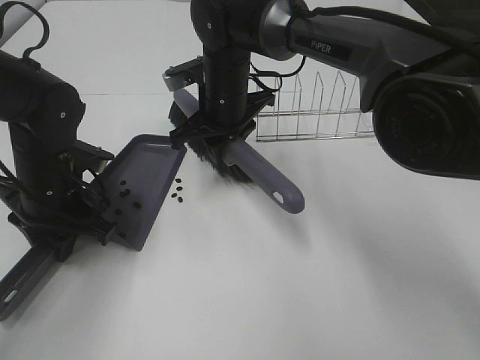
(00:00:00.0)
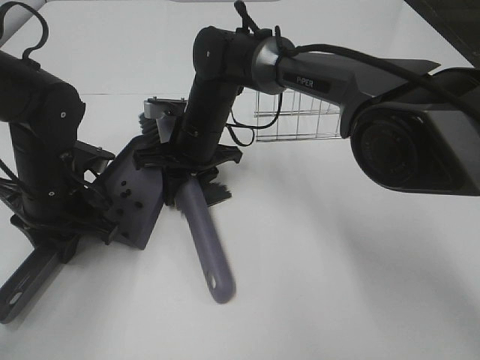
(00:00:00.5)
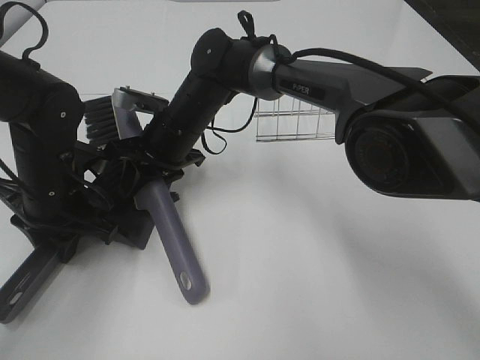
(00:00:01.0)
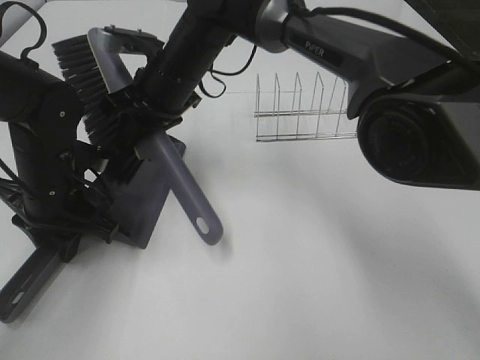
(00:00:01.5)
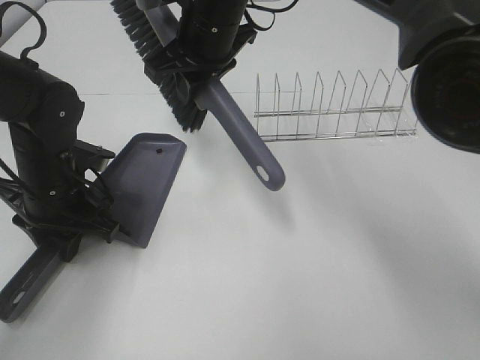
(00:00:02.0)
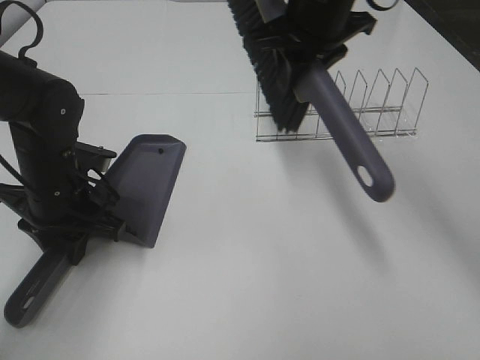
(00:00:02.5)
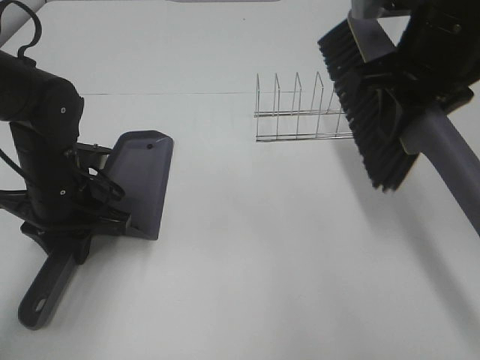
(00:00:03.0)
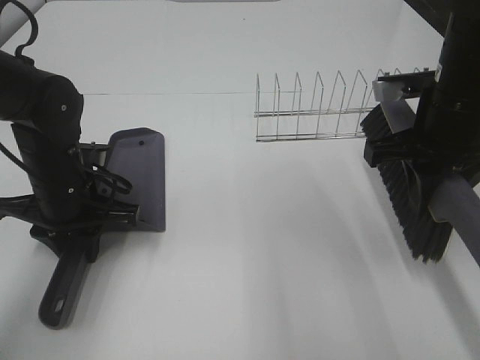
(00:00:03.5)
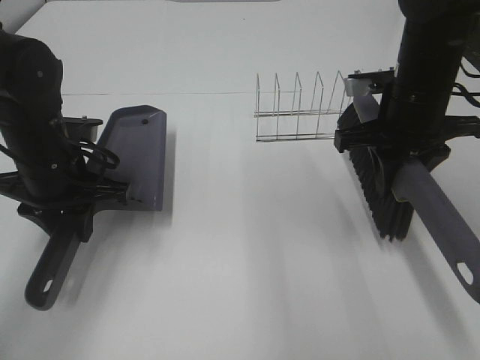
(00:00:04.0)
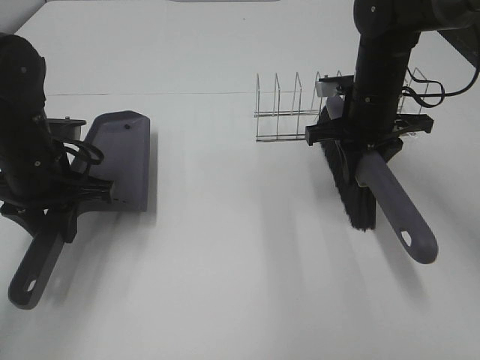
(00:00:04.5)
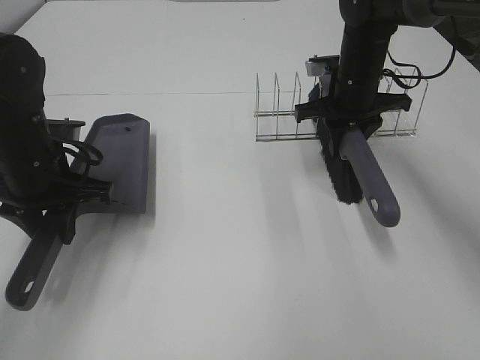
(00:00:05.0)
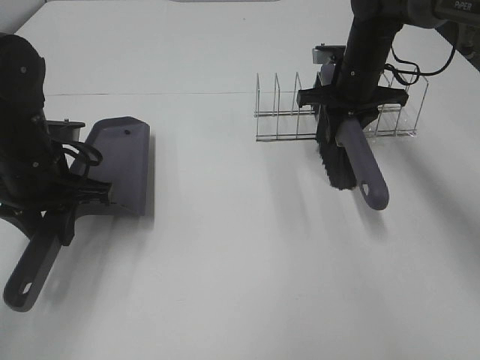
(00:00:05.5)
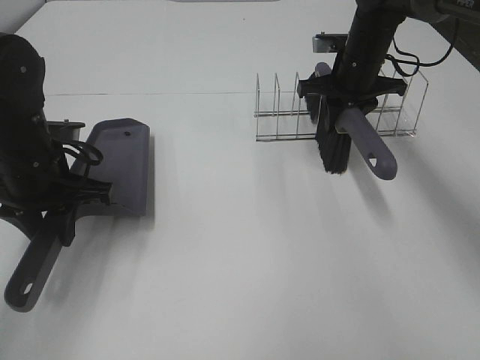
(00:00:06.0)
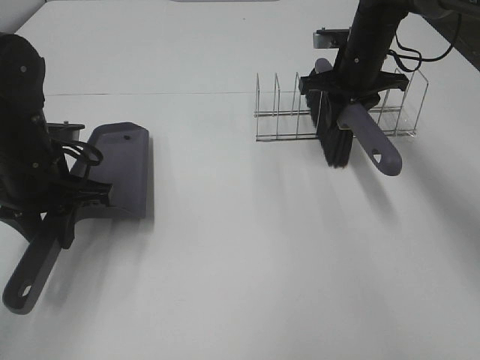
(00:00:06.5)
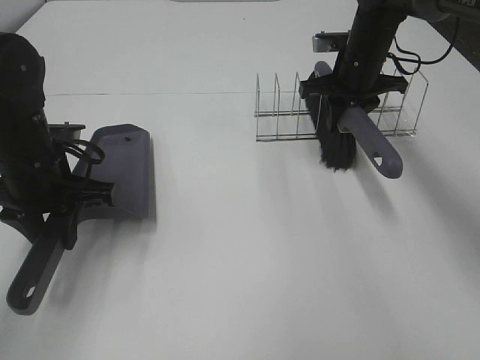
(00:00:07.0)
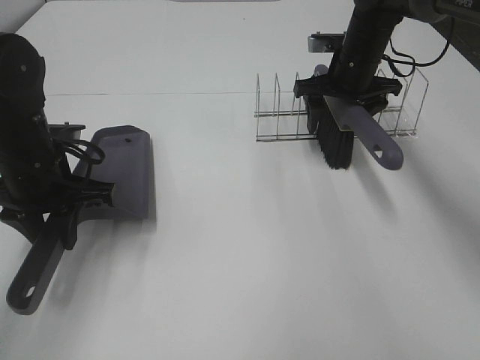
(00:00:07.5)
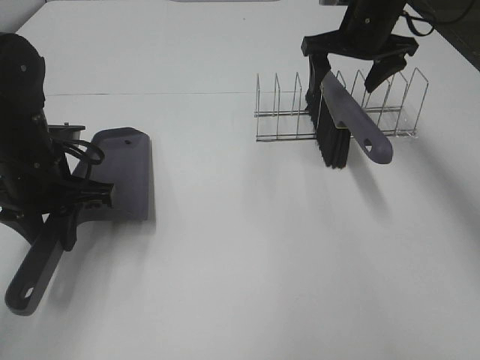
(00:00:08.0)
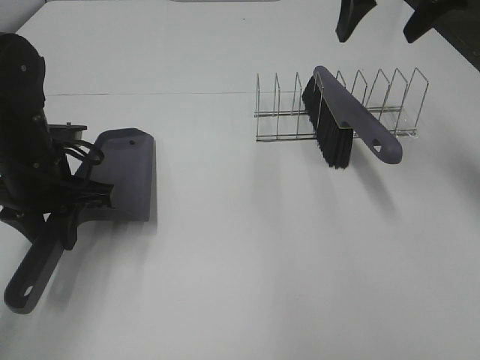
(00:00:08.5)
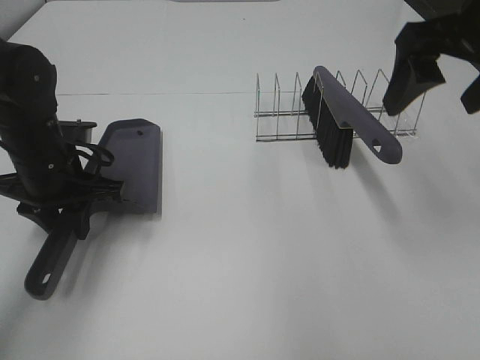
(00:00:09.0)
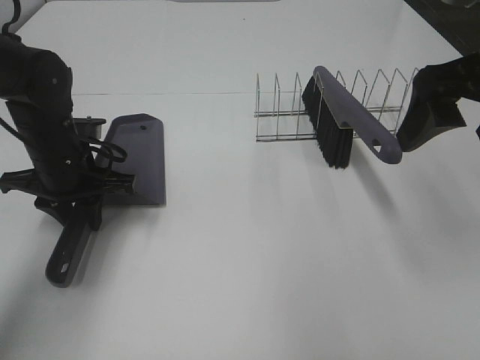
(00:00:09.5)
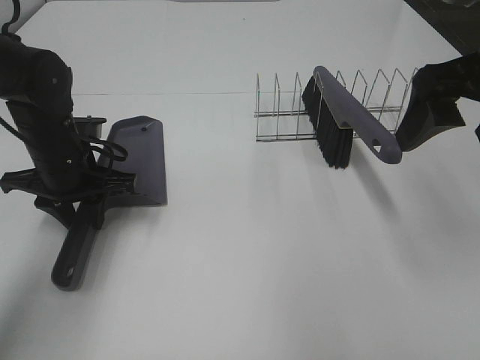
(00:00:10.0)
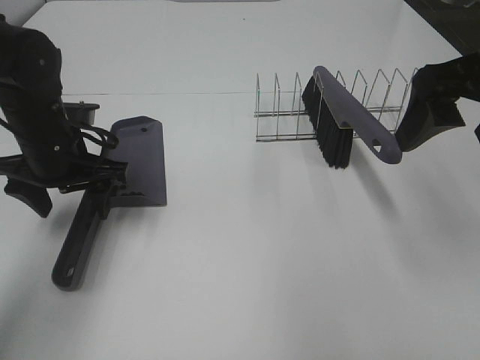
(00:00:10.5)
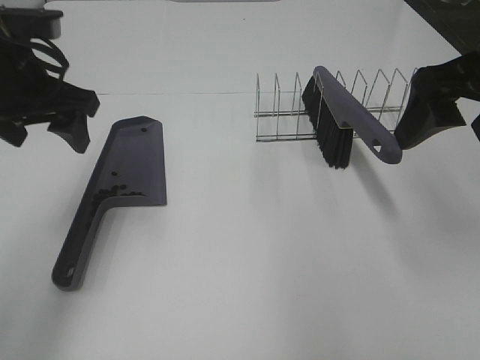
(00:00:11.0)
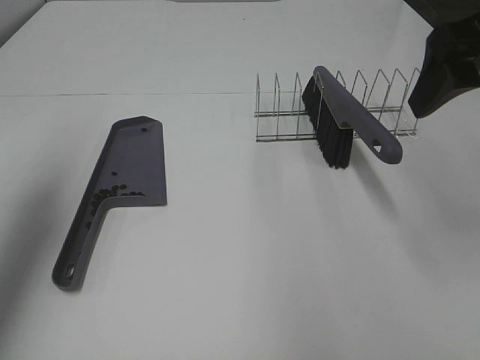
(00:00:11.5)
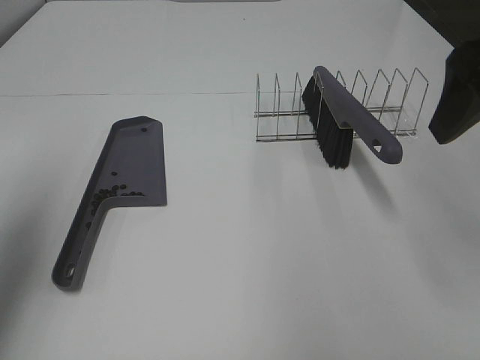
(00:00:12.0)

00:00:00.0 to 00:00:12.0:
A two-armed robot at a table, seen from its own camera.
Task of the whole recording: Sweep Coffee Bean.
Step, 00:00:02.0 to 00:00:07.5: Right hand:place the broom on the rack.
Step, 00:00:08.0 to 00:00:10.5: Left hand:place the dustpan on the table.
00:00:00.0 to 00:00:02.0: The right gripper shifts approximately 10 cm upward.
00:00:02.0 to 00:00:04.0: The right gripper moves to the right and backward, roughly 20 cm.
00:00:04.0 to 00:00:06.0: The right gripper is displaced forward by some 15 cm.
00:00:06.0 to 00:00:08.0: The right gripper is displaced upward by approximately 5 cm, and opens its fingers.
00:00:08.0 to 00:00:10.0: The right gripper travels backward by roughly 25 cm.
00:00:10.0 to 00:00:12.0: The left gripper heads upward, to the left and backward, covering approximately 25 cm, and opens its fingers.

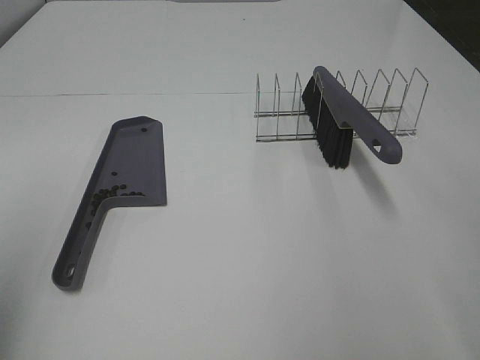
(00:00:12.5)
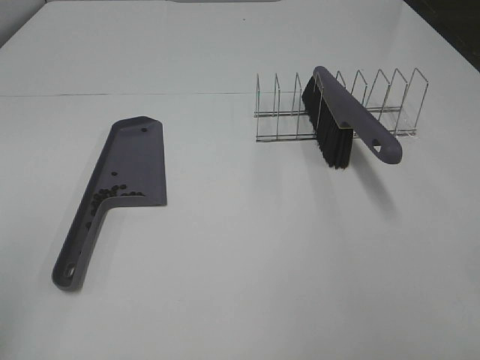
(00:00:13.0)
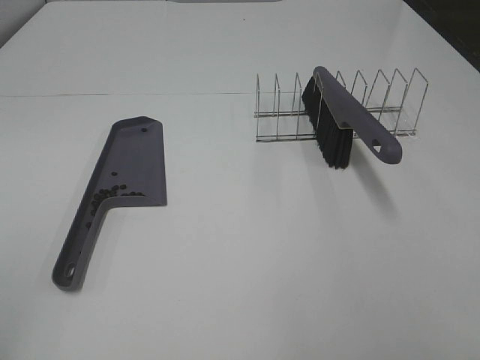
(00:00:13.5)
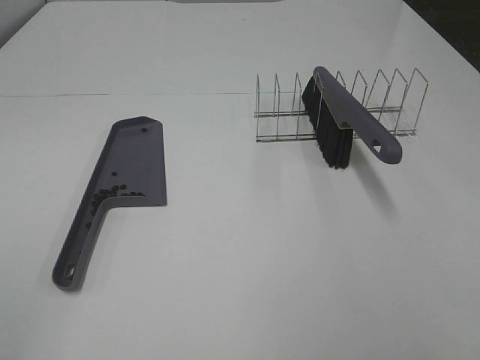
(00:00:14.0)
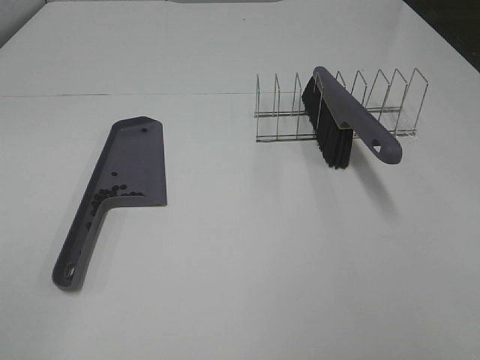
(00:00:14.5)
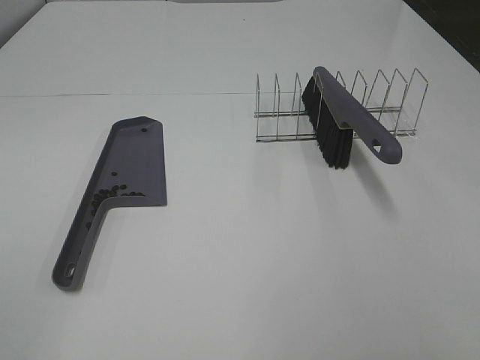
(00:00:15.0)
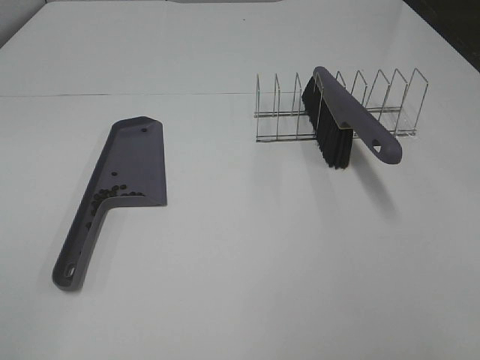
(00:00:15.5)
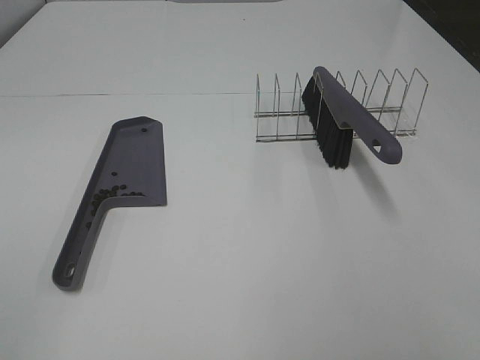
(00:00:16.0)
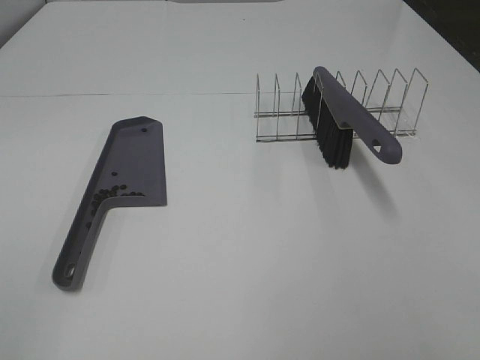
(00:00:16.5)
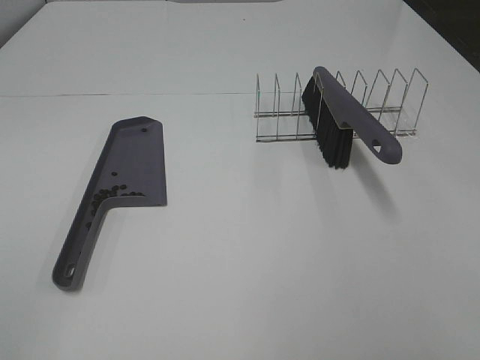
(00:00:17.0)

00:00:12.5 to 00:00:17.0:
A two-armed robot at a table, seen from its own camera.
Task of the whole recording: Sweep Coffee Bean.
00:00:12.5 to 00:00:14.5: The left gripper moves backward, roughly 15 cm.
00:00:14.5 to 00:00:17.0: Neither gripper changes place.

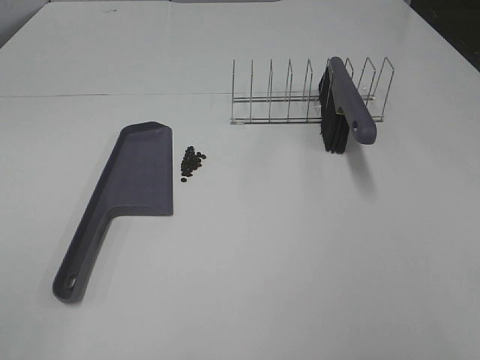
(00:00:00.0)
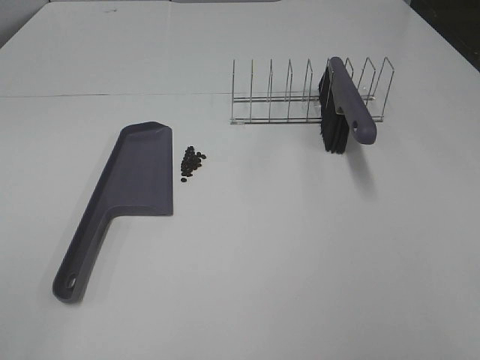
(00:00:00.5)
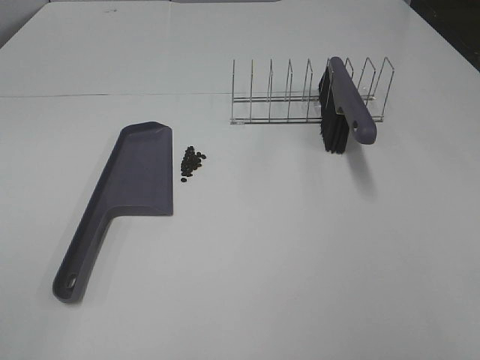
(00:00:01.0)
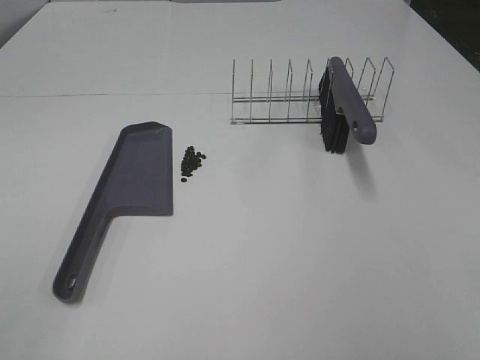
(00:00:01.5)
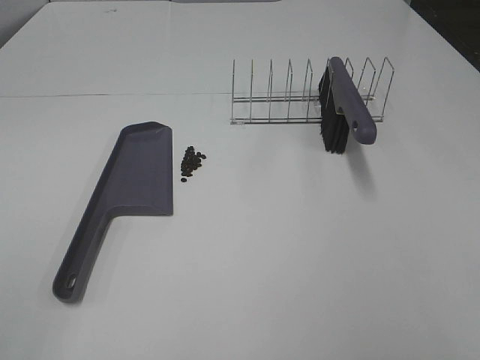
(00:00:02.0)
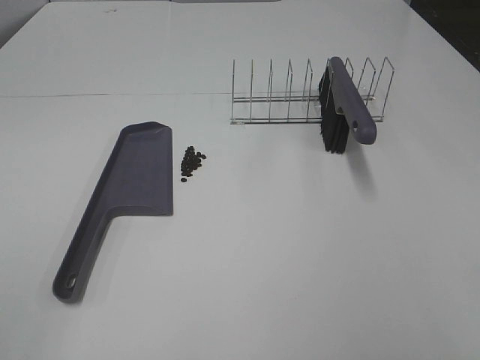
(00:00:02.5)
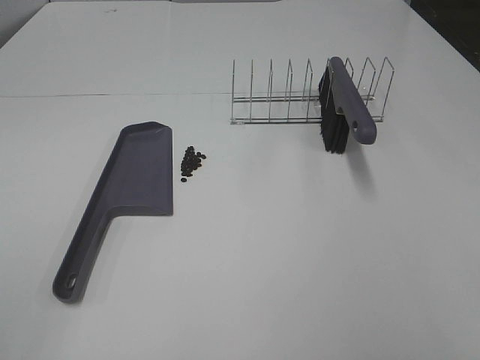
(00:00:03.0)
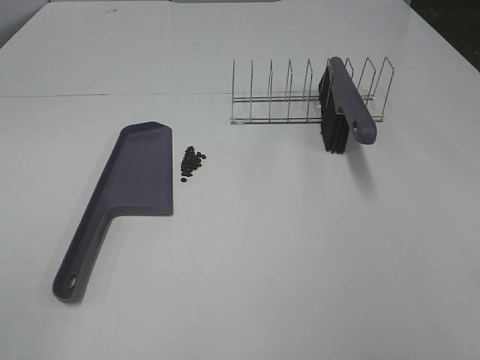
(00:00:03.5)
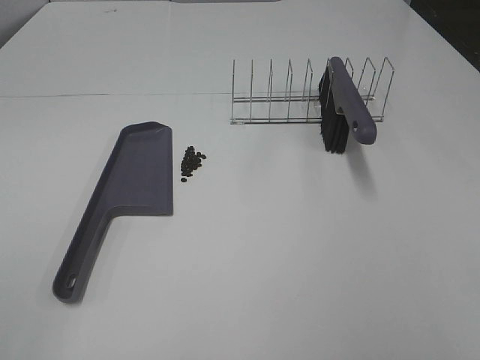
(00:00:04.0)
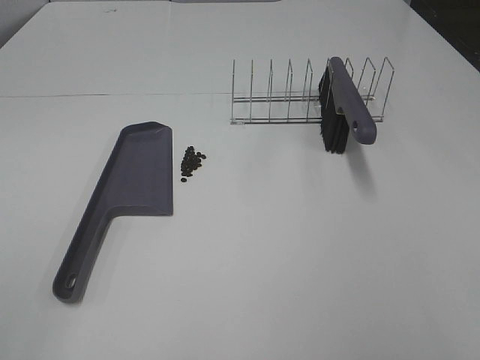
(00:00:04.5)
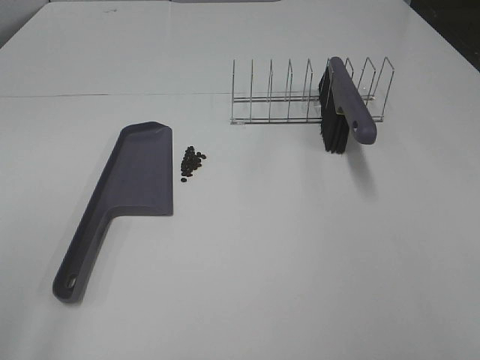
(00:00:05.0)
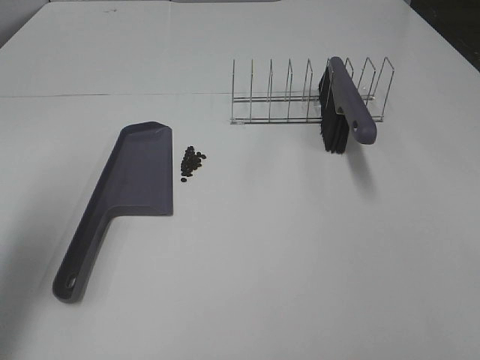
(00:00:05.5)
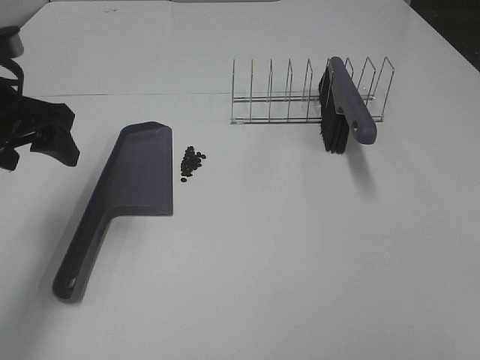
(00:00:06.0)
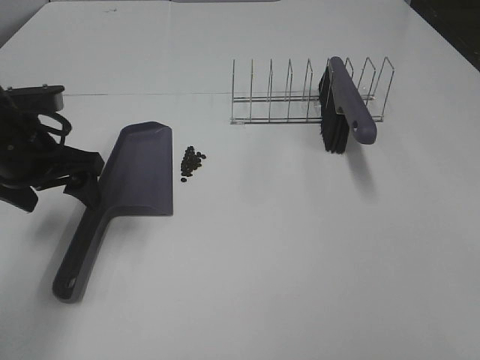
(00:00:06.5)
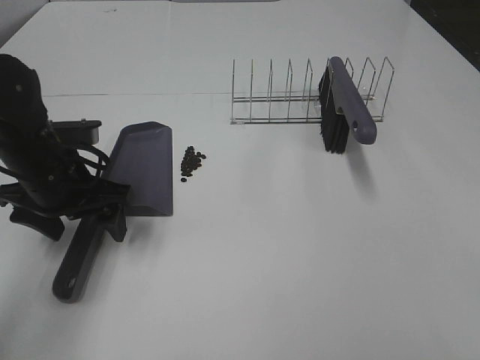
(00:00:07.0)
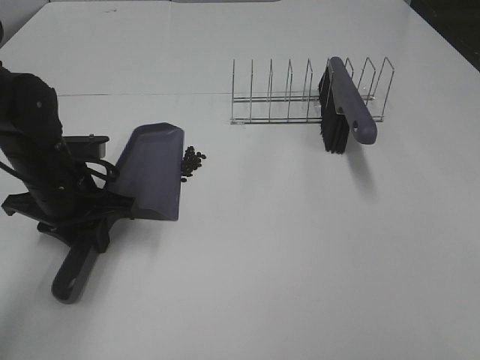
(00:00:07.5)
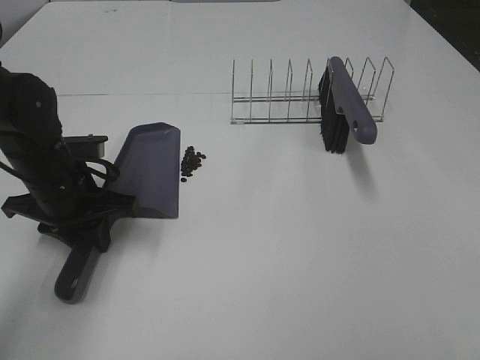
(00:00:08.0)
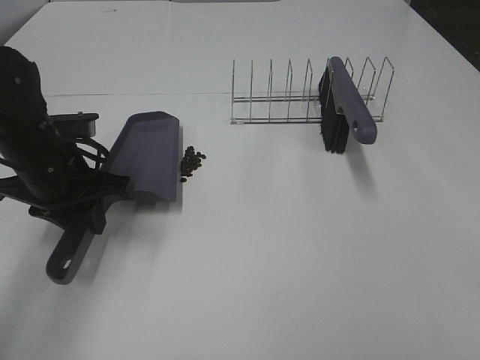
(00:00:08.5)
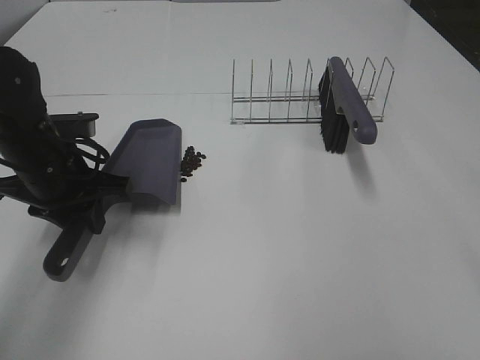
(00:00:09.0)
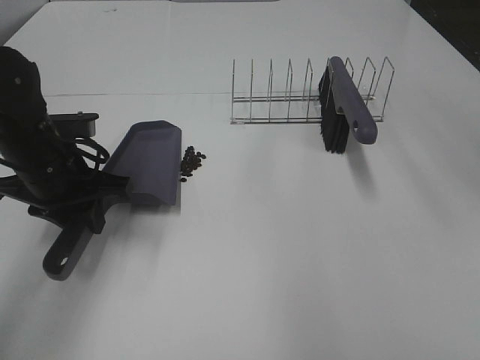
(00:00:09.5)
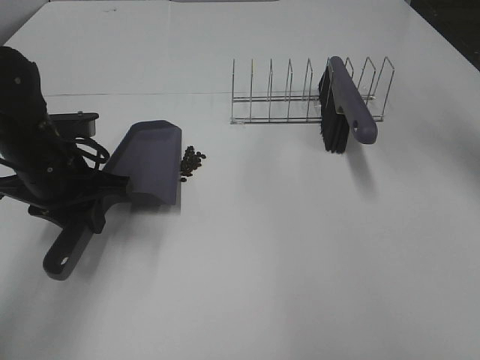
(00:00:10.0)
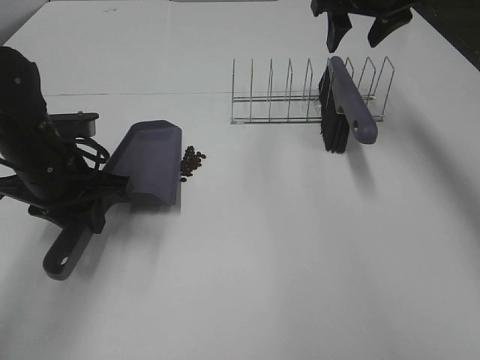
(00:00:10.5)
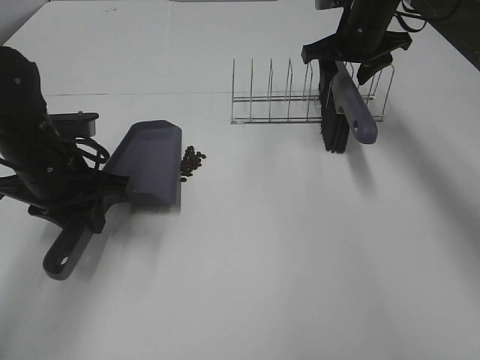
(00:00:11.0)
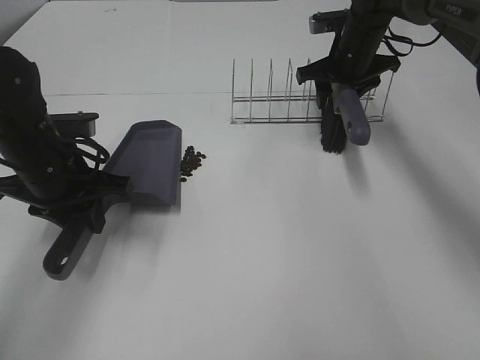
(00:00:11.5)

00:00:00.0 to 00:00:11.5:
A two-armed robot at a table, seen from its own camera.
Task of the whole recording: Sweep Coffee Bean.
Step, 00:00:00.0 to 00:00:07.5: Left hand: grab the dustpan.
00:00:00.0 to 00:00:04.0: Both grippers stay put.
00:00:04.0 to 00:00:06.0: The left gripper moves forward, some 30 cm.
00:00:06.0 to 00:00:07.5: The left gripper shifts about 10 cm downward, and closes.
00:00:09.5 to 00:00:11.5: The right gripper goes roughly 35 cm downward and forward, and closes its fingers.
